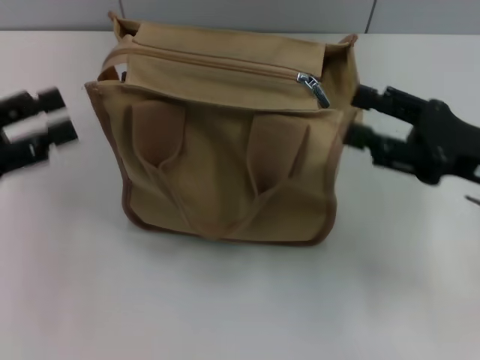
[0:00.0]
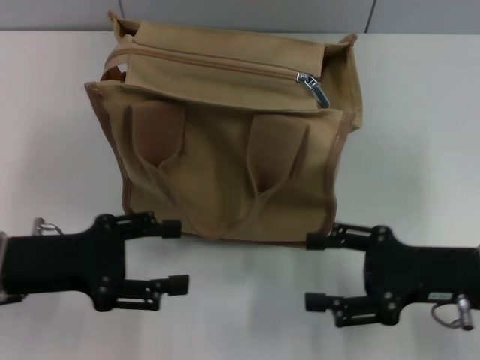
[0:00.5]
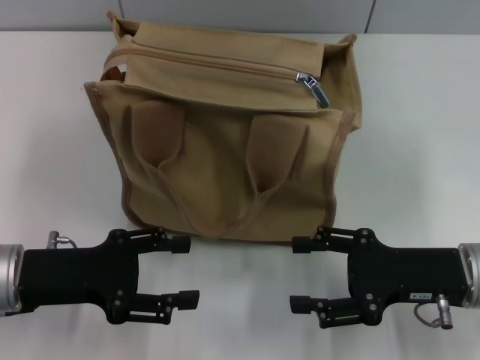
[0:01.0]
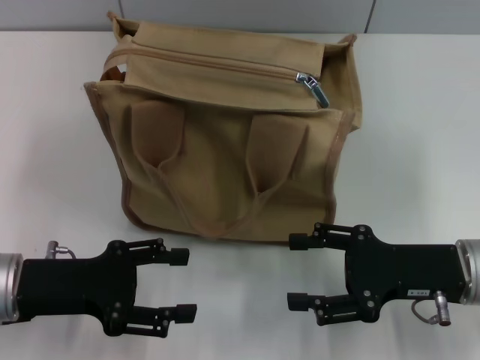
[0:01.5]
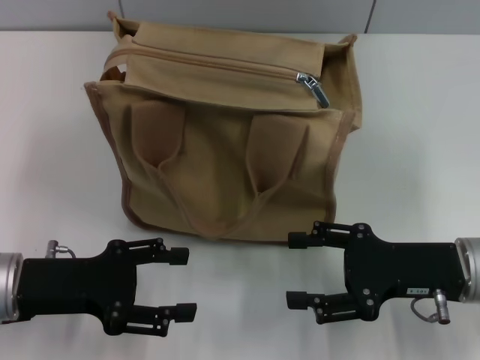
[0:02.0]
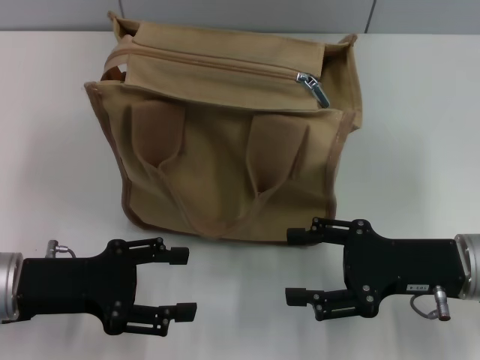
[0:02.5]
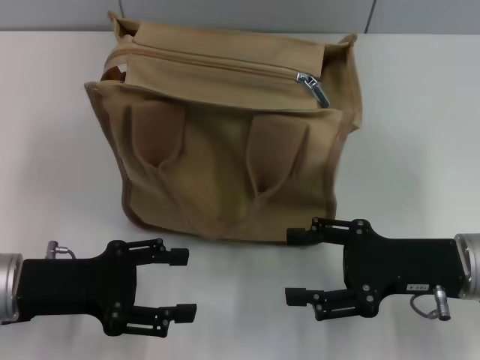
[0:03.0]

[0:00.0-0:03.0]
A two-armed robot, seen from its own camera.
0:00.0 to 0:01.5: The left gripper shifts about 10 cm to the right and downward. The right gripper shifts about 5 cm downward.
0:01.5 to 0:03.0: Both grippers stay put.

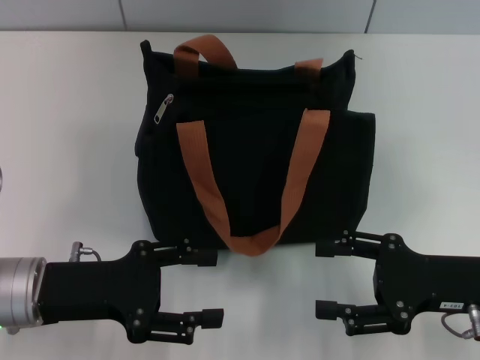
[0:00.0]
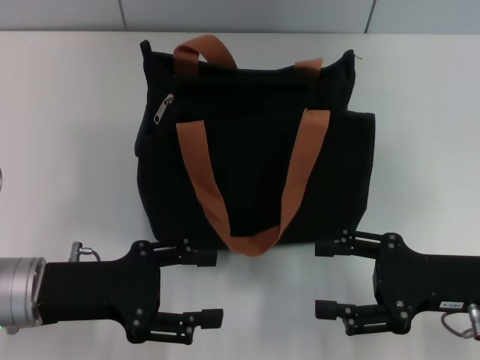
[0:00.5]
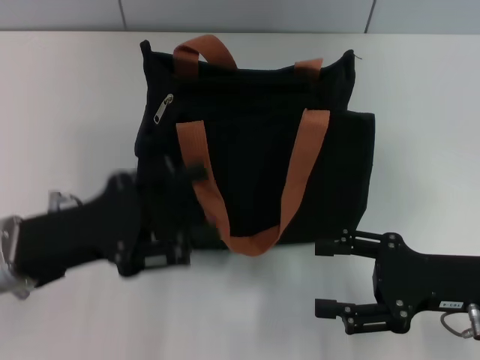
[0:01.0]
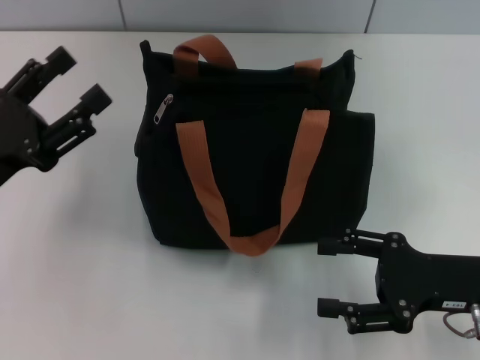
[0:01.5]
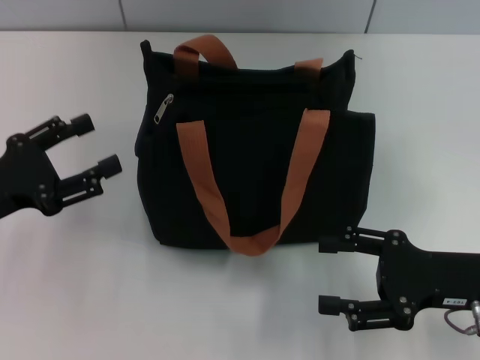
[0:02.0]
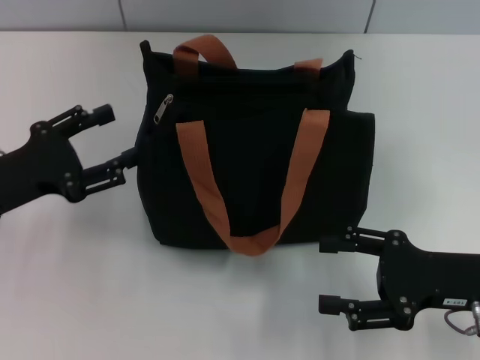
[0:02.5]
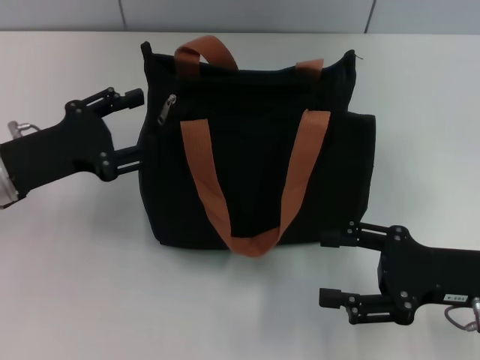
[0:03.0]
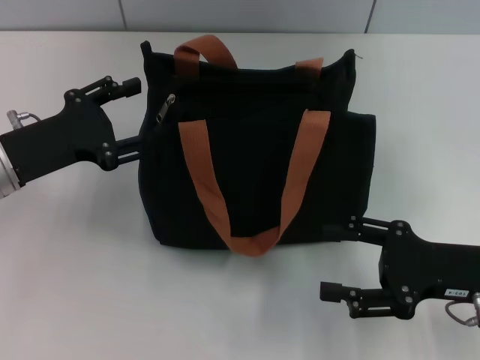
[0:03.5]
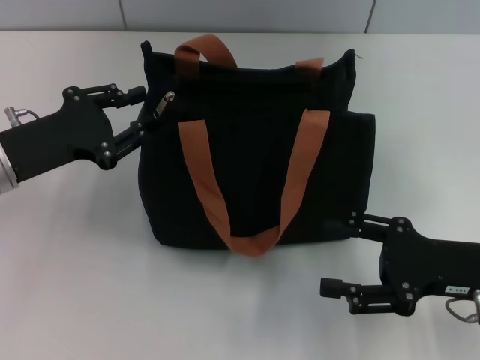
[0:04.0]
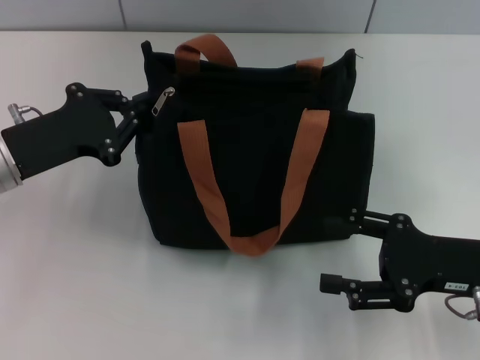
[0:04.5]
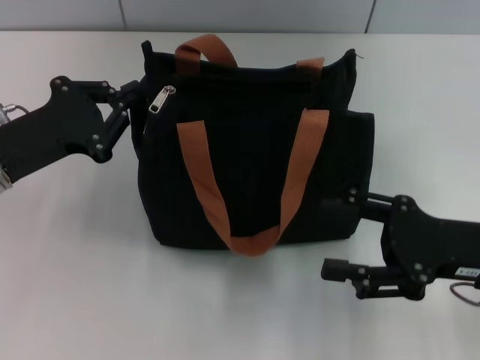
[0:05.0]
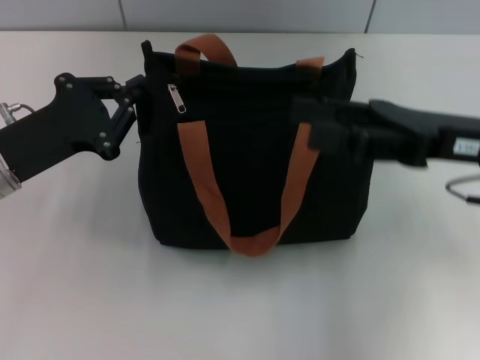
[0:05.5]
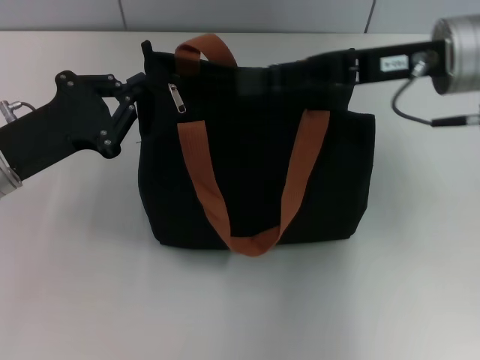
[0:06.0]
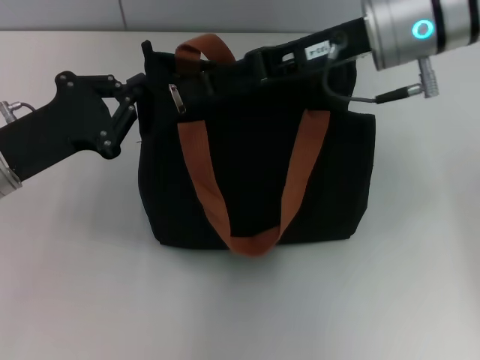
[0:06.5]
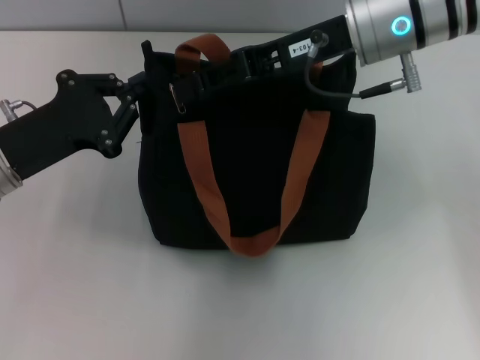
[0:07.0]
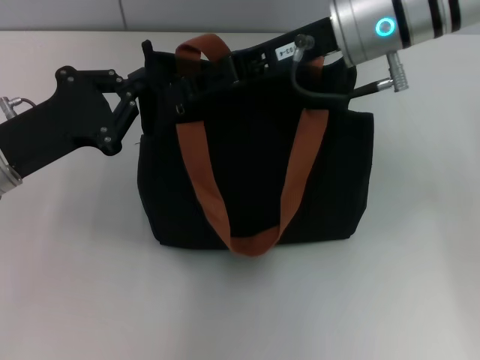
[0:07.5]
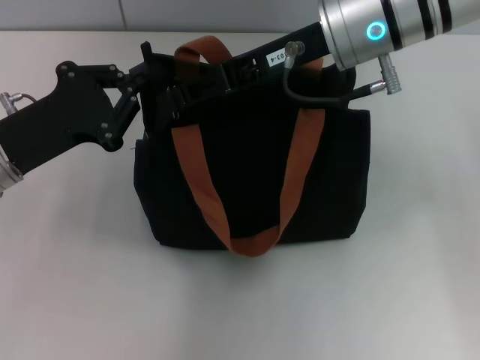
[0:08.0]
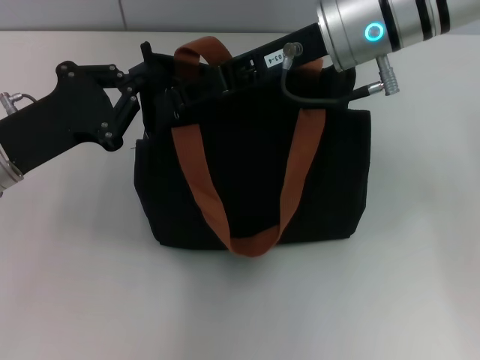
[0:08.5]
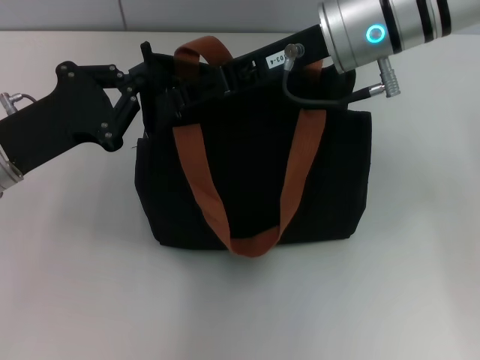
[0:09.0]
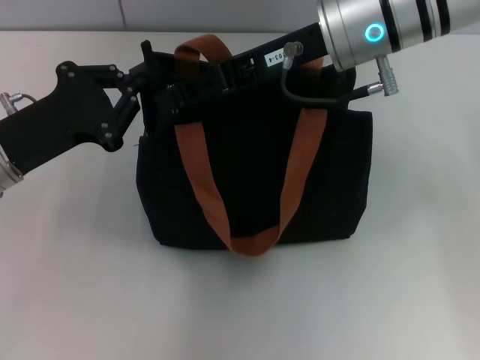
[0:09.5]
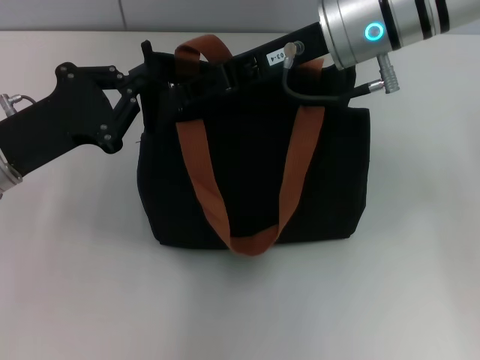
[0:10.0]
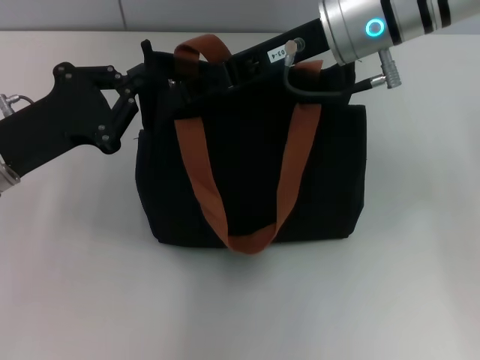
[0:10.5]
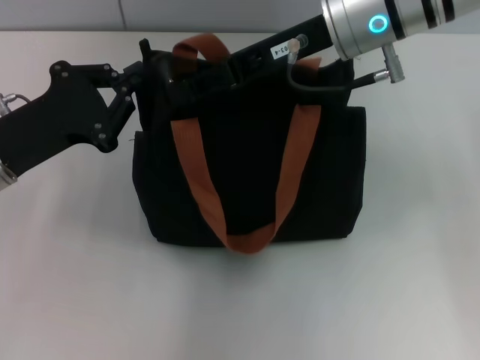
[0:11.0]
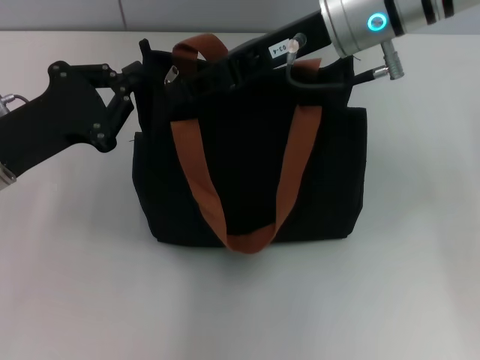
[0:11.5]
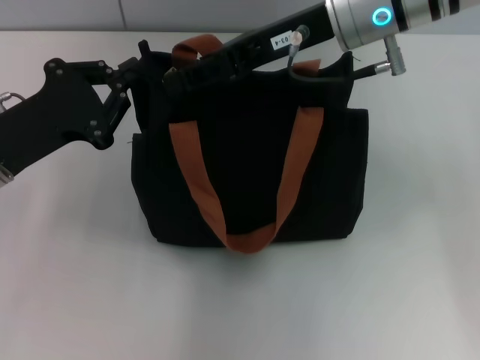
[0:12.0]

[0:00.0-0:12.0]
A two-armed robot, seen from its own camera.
0:00.0 to 0:02.0: The left gripper travels to the left by roughly 10 cm.
0:02.0 to 0:04.0: The left gripper heads forward, covering some 5 cm.
0:04.0 to 0:06.0: The left gripper closes up; the right gripper heads upward, forward and to the left, covering some 20 cm.
0:06.0 to 0:08.0: The right gripper goes approximately 10 cm to the left, and closes its fingers.
0:08.0 to 0:10.0: Neither gripper changes place.
0:10.0 to 0:12.0: There are only small adjustments of the grippers.

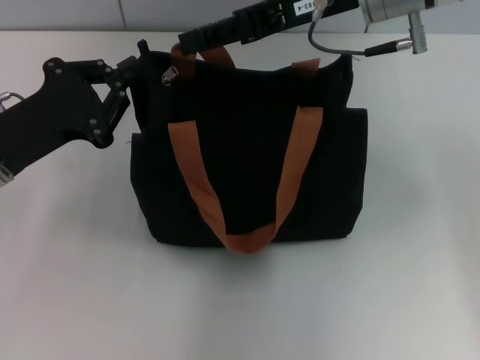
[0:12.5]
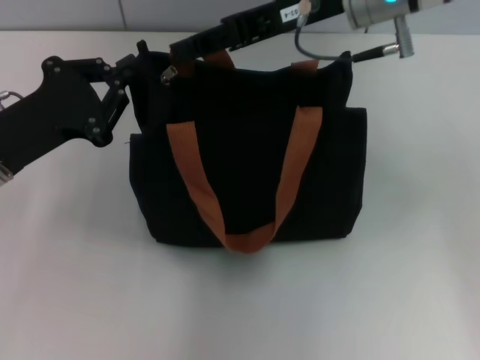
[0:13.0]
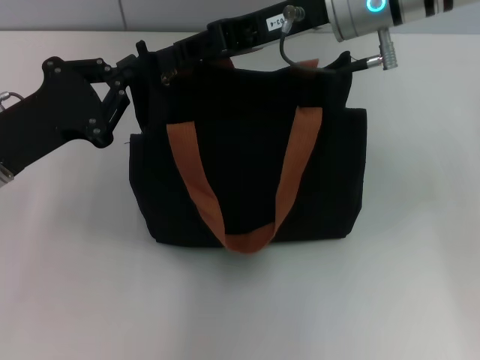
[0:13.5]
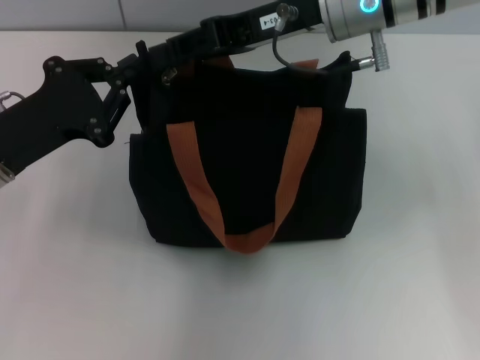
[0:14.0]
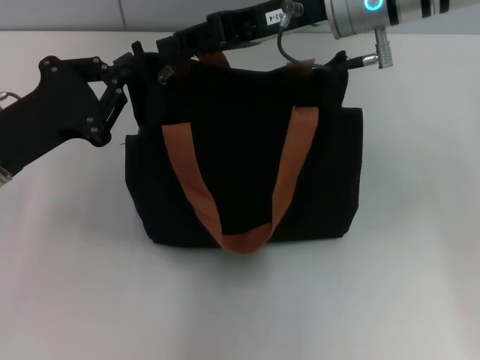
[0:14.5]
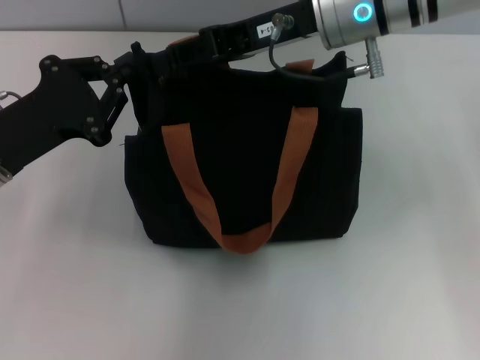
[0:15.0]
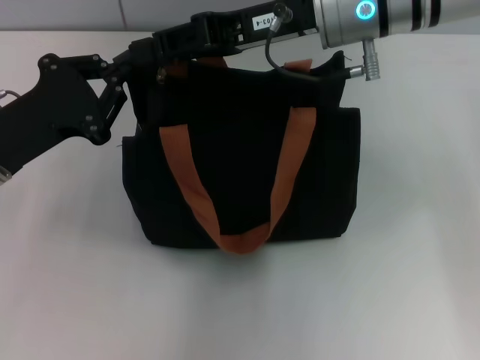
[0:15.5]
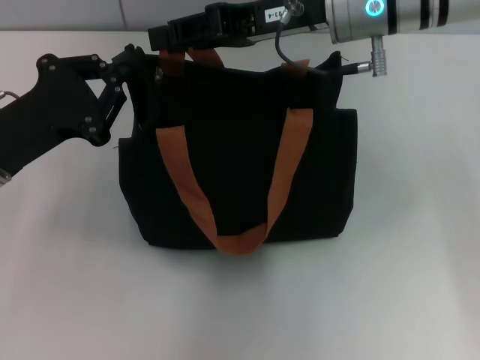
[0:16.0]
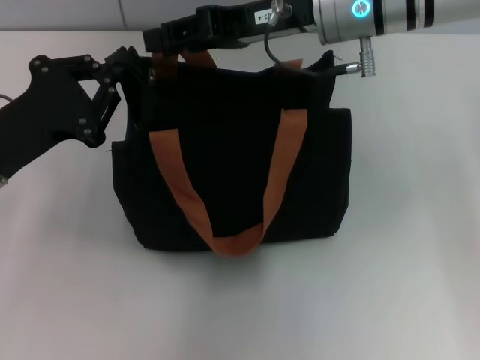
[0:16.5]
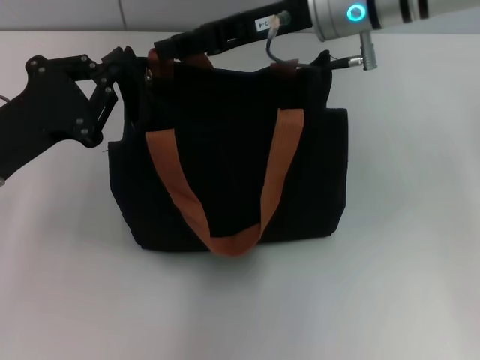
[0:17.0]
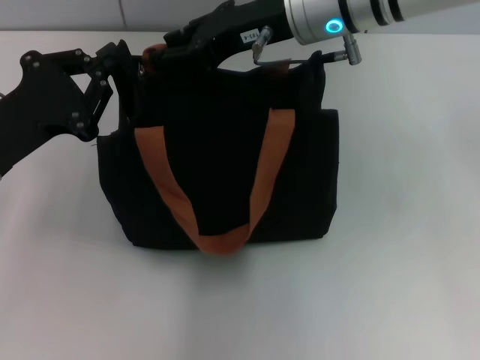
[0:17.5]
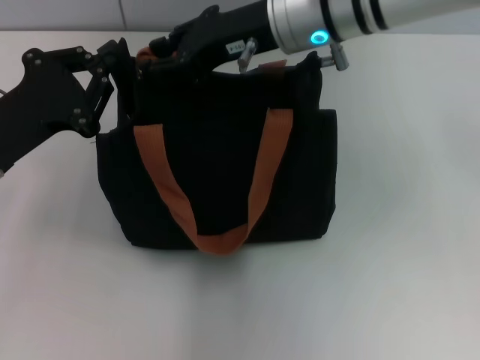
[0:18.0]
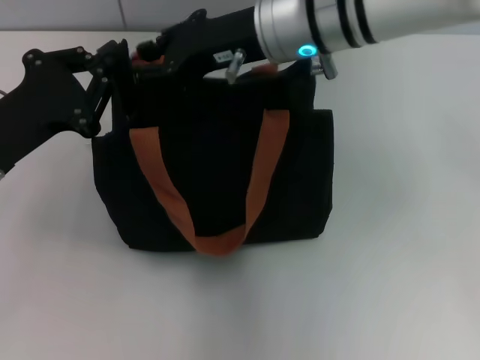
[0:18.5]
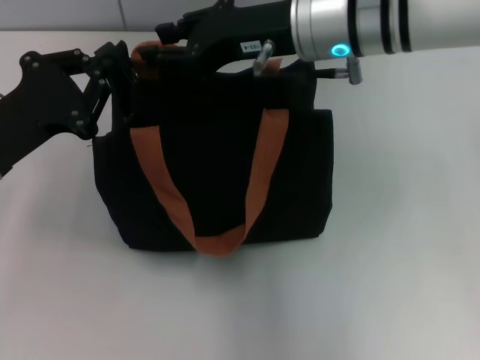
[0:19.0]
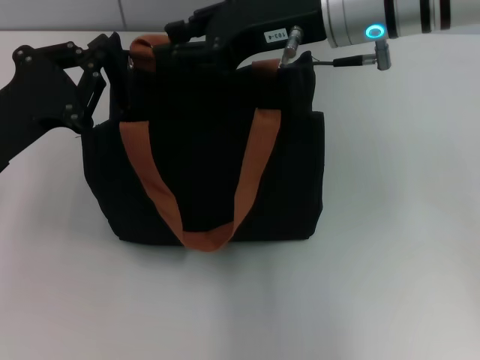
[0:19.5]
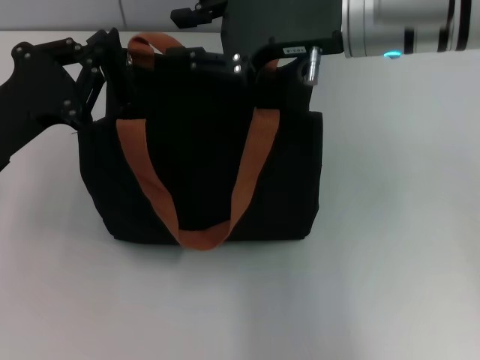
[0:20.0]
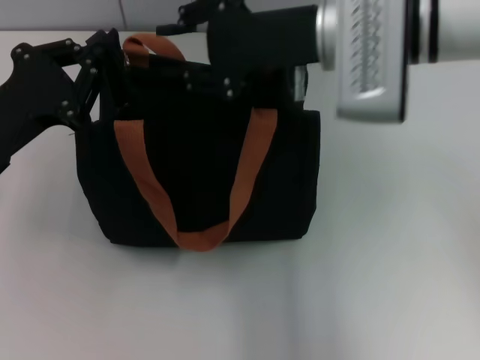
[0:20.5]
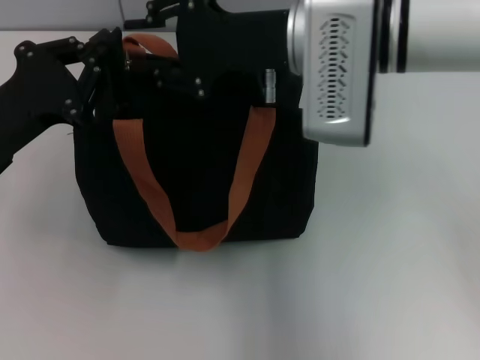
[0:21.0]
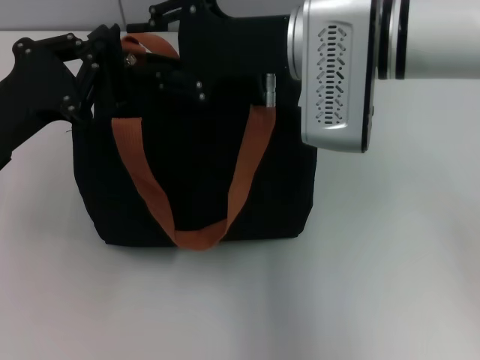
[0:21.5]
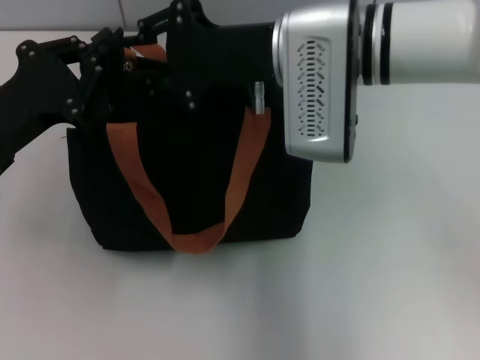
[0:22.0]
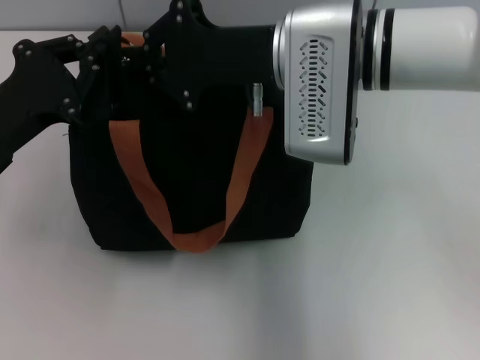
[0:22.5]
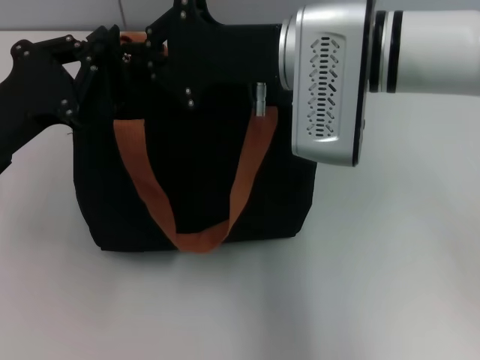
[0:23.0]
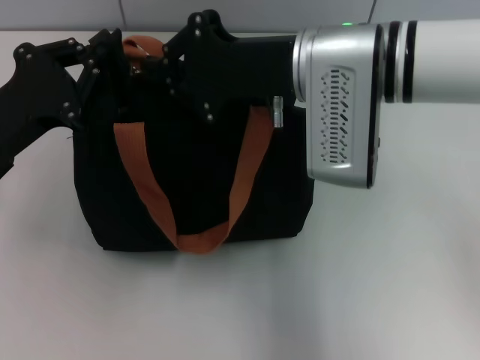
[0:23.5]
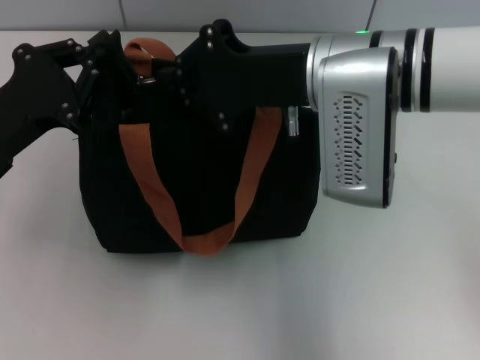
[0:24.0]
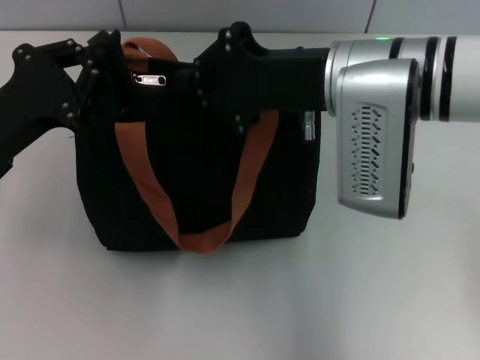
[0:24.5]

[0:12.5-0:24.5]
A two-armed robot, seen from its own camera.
0:12.5 to 0:16.5: The grippers move only a little.
0:20.5 to 0:22.5: The right gripper closes.
